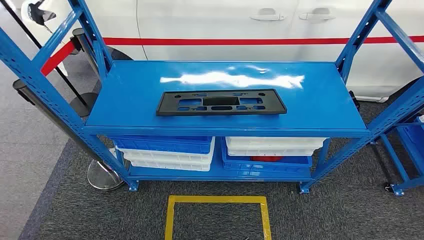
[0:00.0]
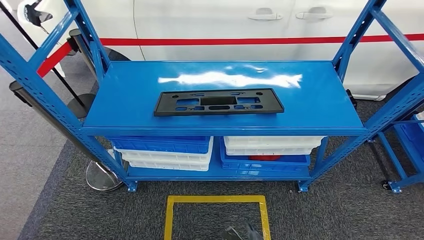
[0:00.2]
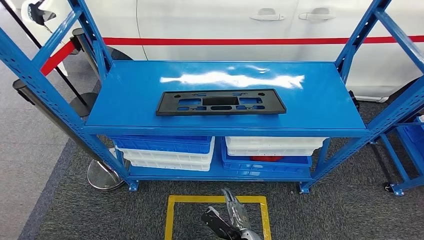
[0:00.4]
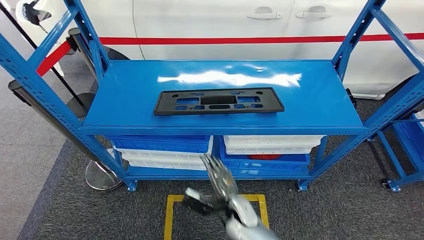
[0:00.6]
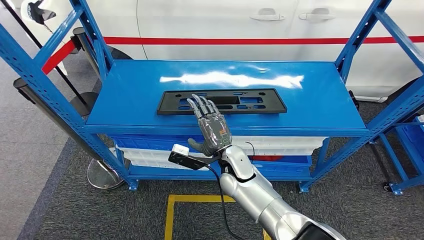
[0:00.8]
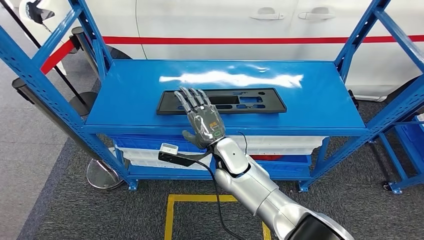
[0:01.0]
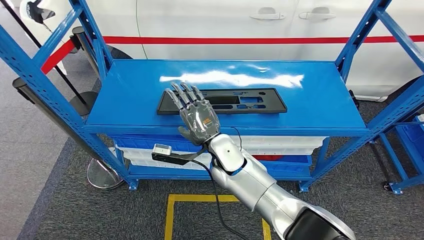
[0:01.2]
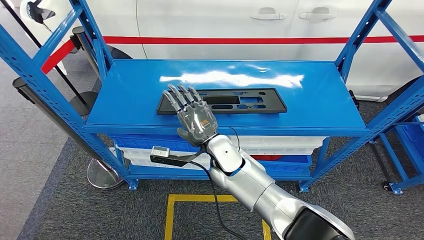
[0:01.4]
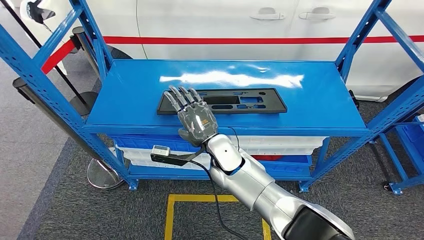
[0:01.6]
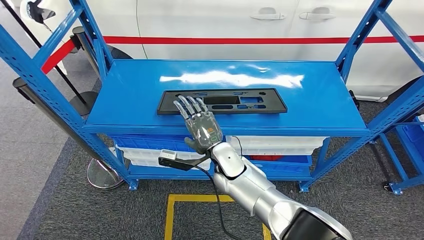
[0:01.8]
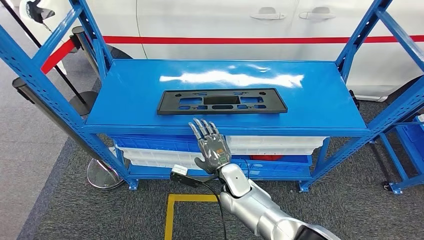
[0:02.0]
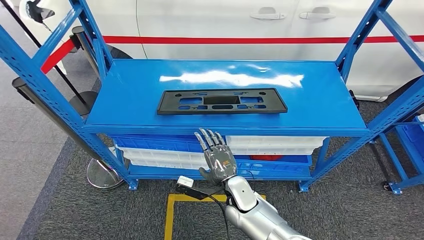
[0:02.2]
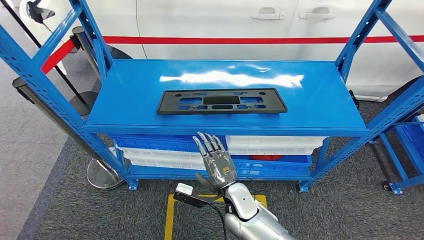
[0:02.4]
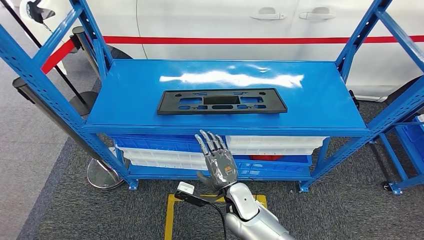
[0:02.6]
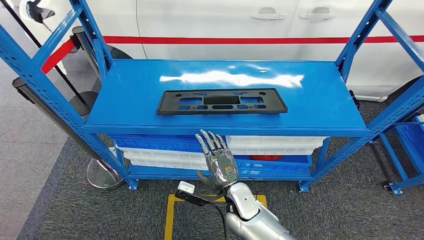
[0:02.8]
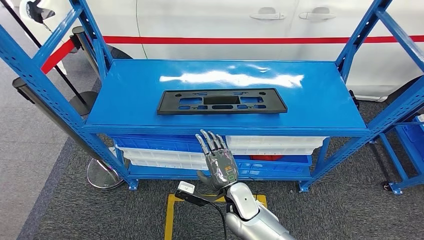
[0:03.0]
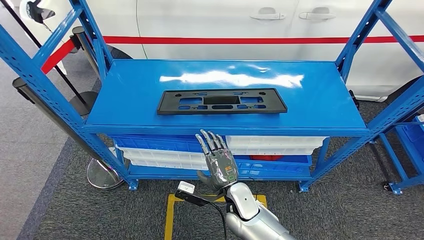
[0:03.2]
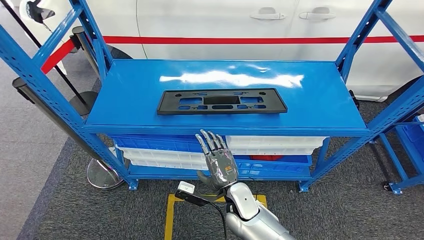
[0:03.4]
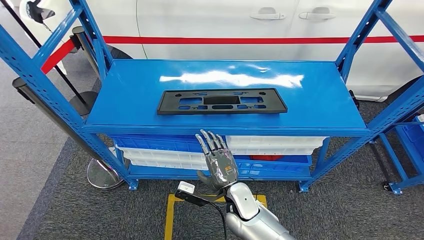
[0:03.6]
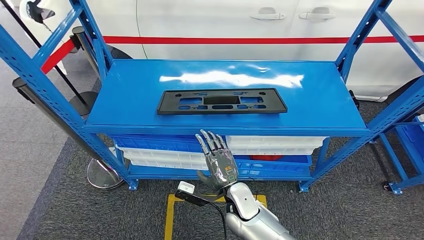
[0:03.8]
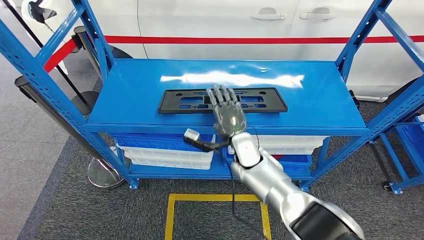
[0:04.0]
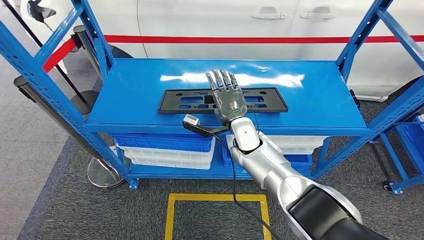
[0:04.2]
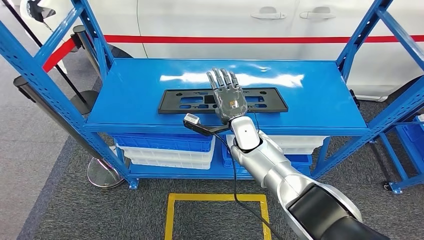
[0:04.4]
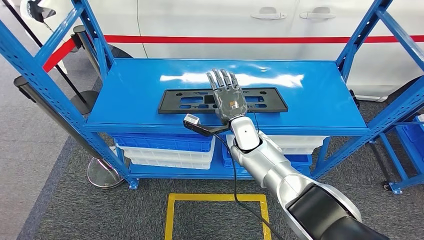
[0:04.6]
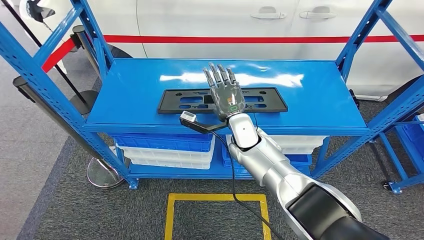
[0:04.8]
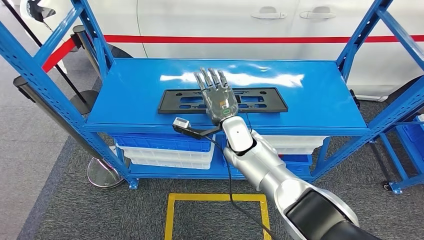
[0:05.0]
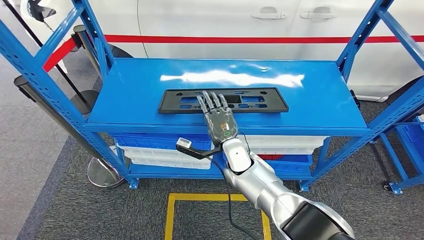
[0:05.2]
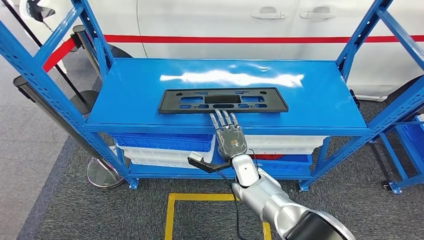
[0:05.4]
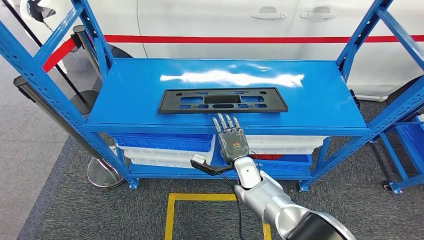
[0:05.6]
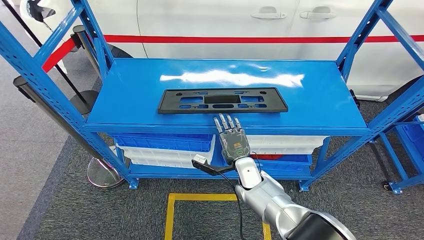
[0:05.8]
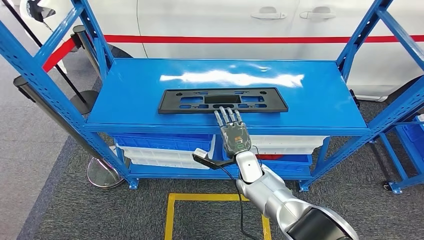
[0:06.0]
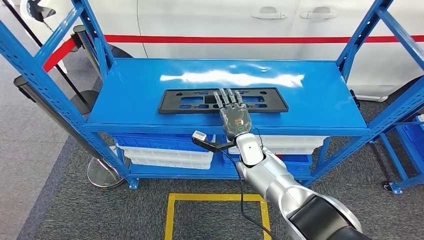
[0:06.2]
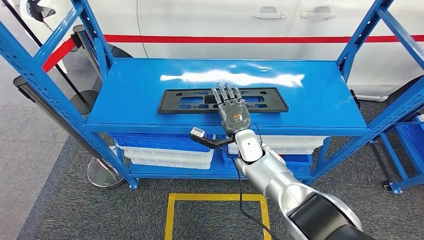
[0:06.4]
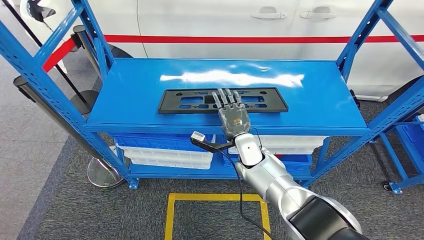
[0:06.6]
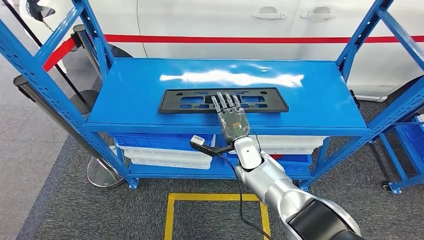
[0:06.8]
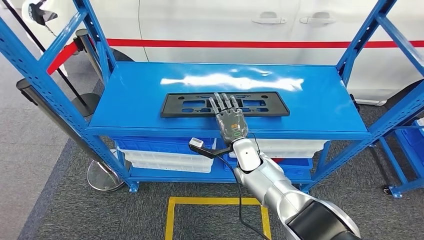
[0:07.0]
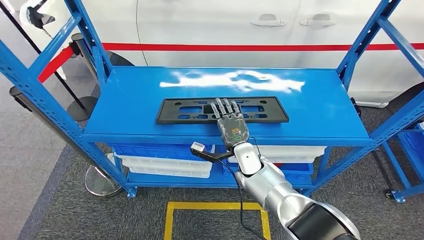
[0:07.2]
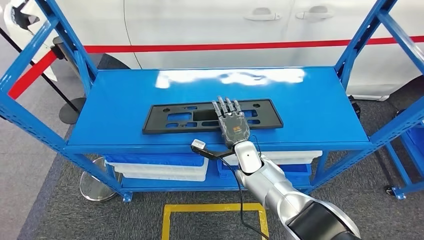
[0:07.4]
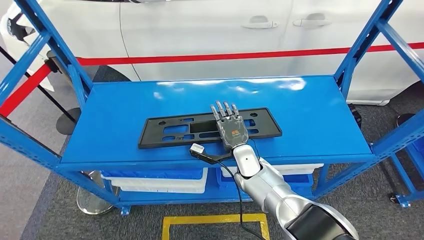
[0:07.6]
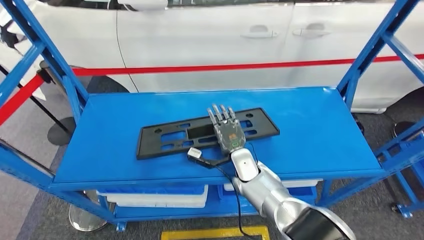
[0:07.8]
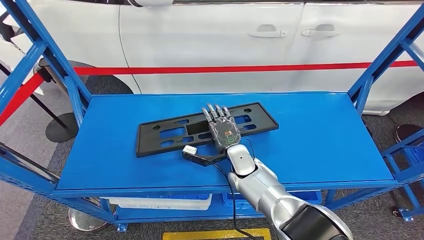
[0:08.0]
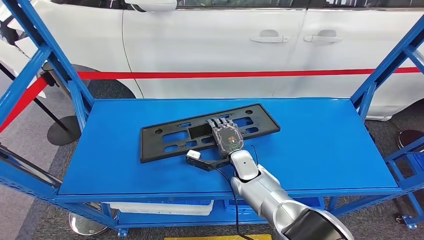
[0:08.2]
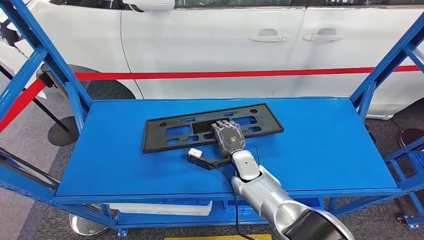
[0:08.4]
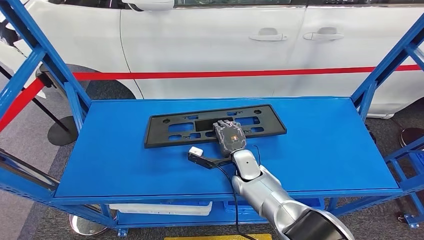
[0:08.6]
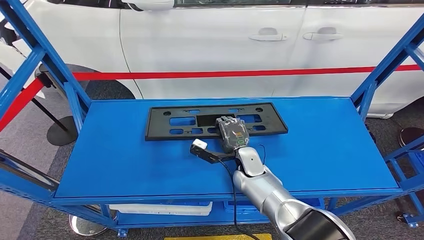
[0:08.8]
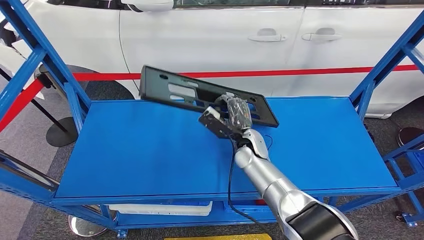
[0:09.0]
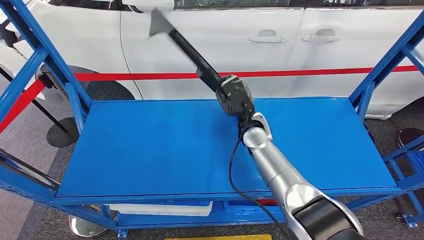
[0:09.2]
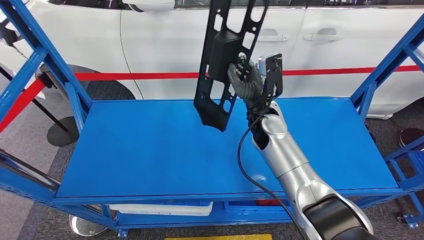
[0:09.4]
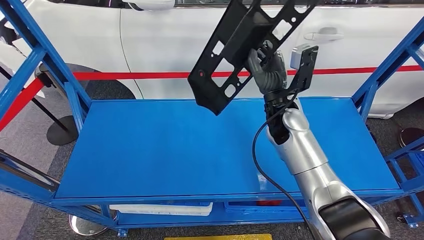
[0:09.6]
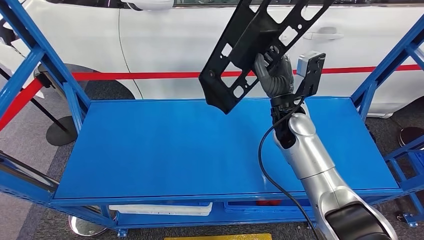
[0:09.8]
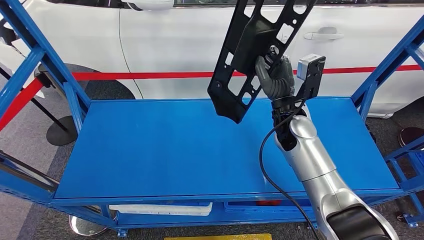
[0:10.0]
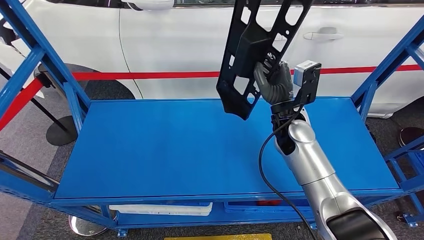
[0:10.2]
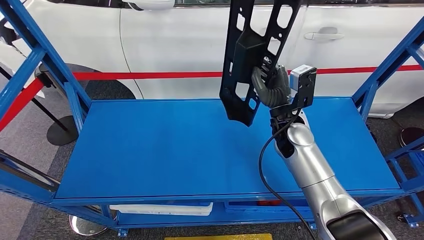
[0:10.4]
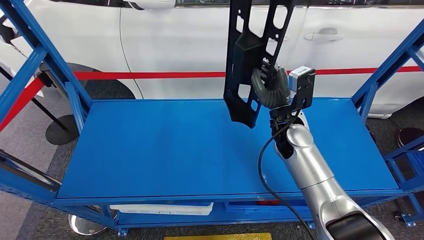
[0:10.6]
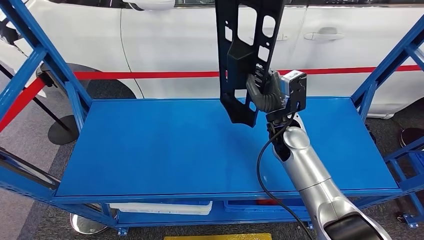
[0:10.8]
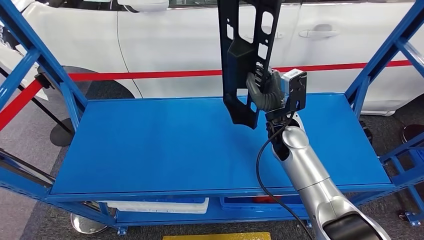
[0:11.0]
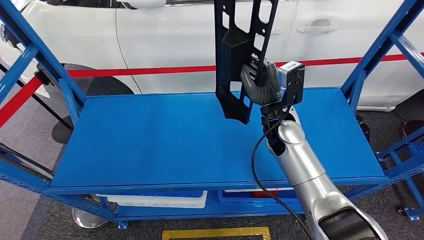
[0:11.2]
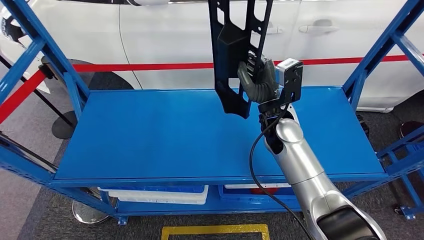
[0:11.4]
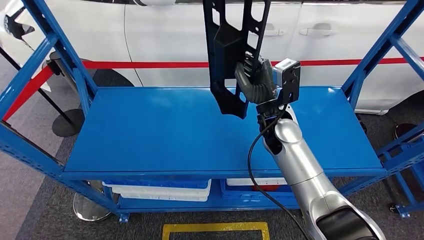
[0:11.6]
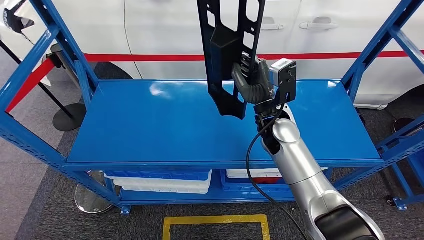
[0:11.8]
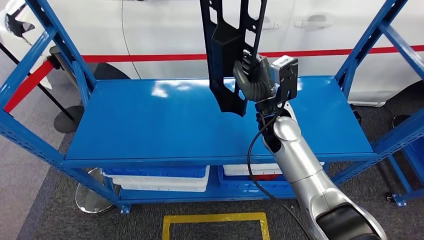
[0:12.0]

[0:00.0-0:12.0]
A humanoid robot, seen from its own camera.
Step, 0:00.0 to 0:09.8: Pick up the large material from the shelf.
0:01.6 to 0:03.0: The right hand heads downward and backward, covering roughly 15 cm.
0:03.0 to 0:04.4: The right hand goes approximately 20 cm forward and upward.
0:04.4 to 0:06.0: The right hand is displaced downward by about 10 cm.

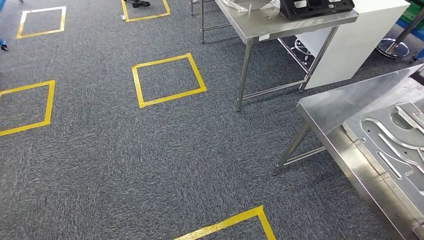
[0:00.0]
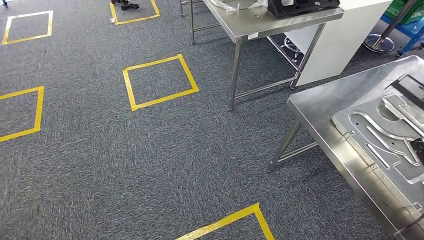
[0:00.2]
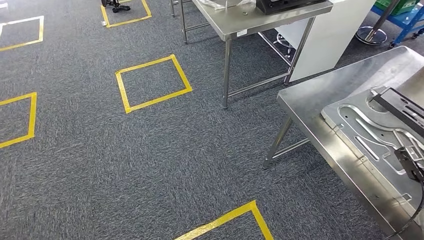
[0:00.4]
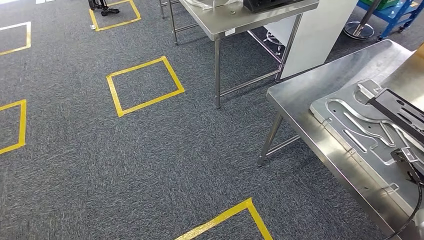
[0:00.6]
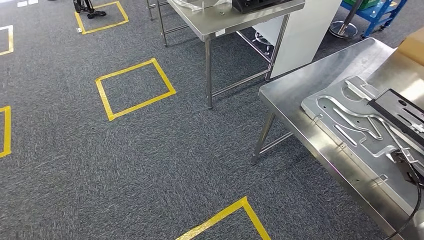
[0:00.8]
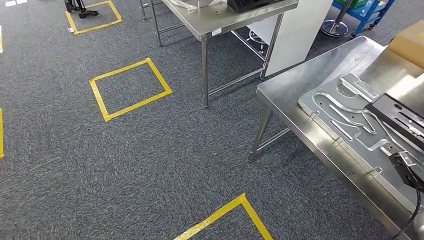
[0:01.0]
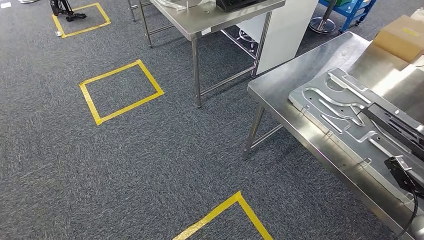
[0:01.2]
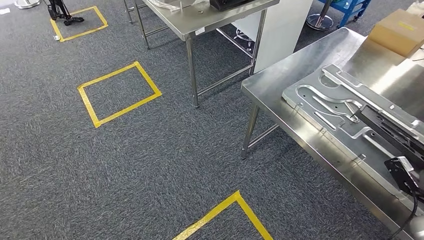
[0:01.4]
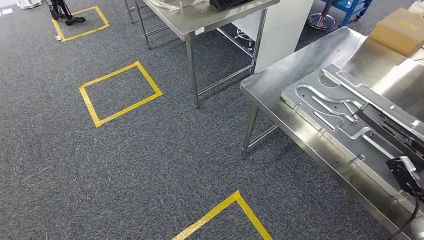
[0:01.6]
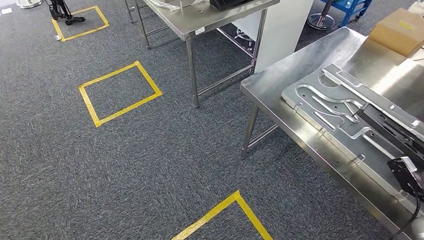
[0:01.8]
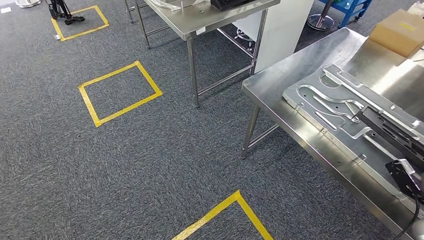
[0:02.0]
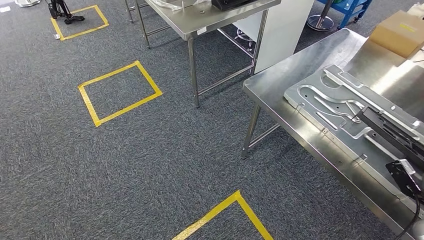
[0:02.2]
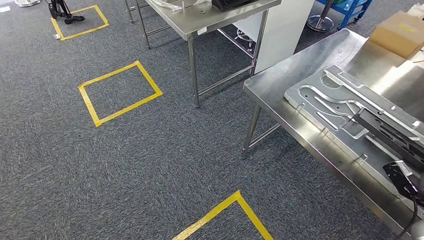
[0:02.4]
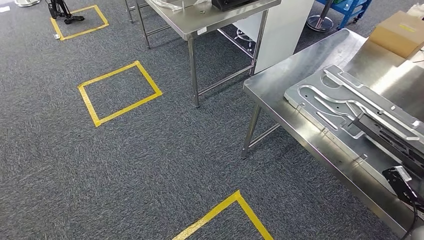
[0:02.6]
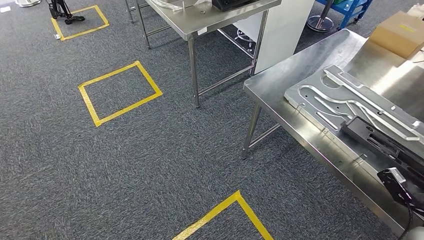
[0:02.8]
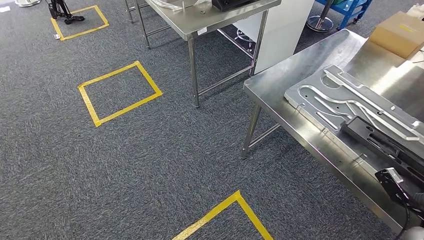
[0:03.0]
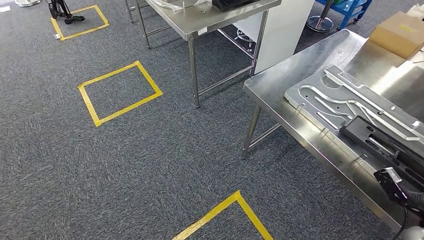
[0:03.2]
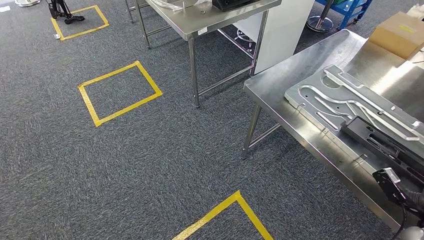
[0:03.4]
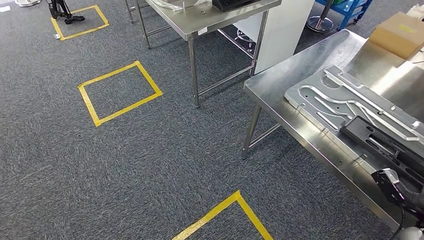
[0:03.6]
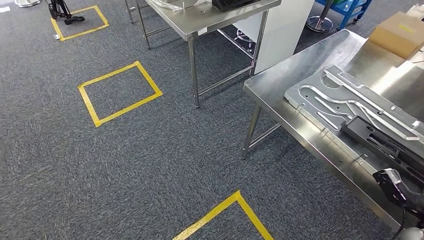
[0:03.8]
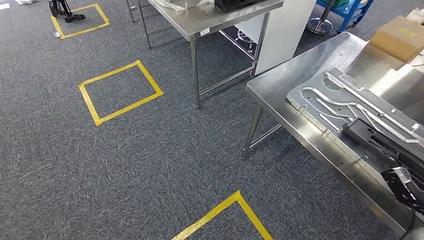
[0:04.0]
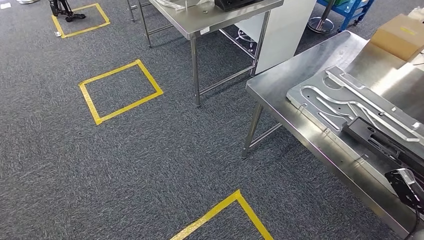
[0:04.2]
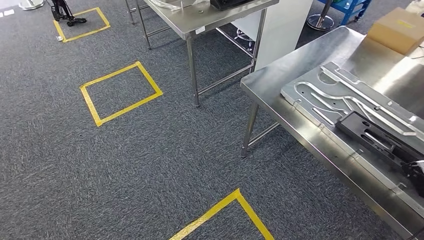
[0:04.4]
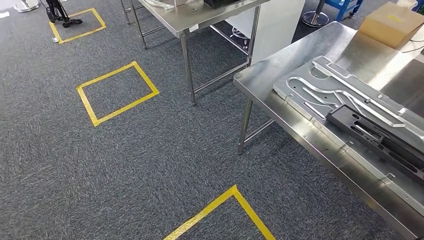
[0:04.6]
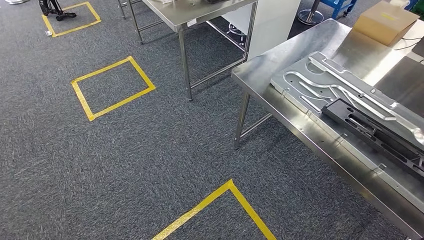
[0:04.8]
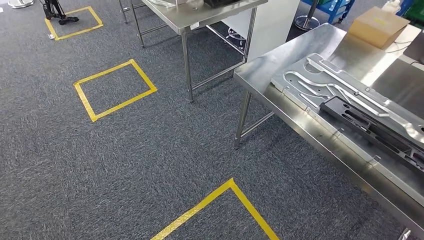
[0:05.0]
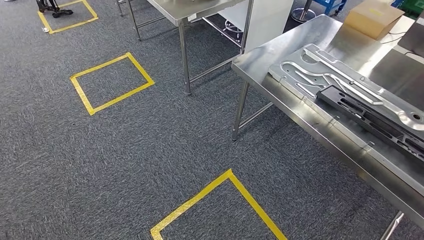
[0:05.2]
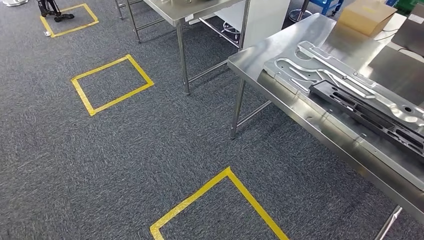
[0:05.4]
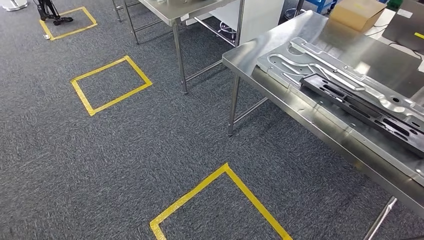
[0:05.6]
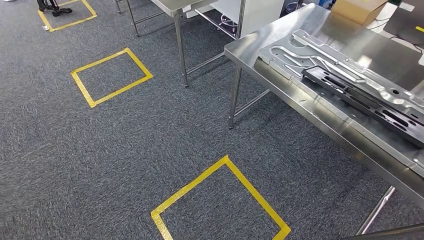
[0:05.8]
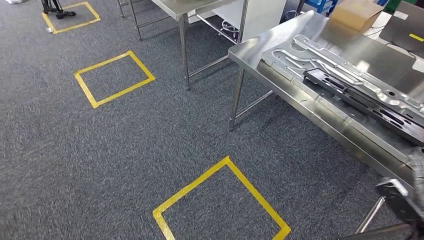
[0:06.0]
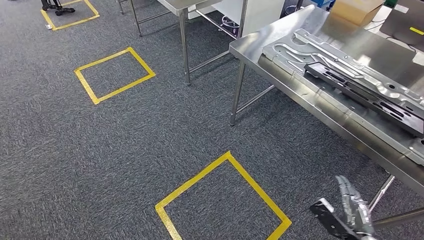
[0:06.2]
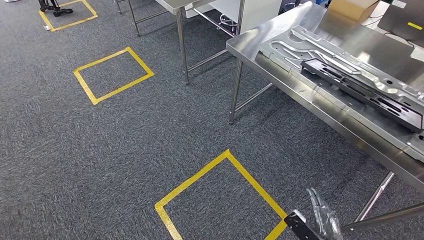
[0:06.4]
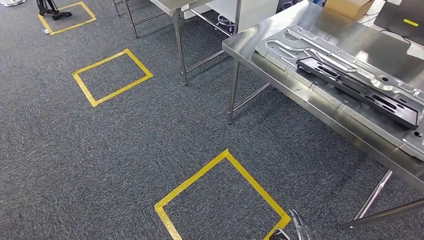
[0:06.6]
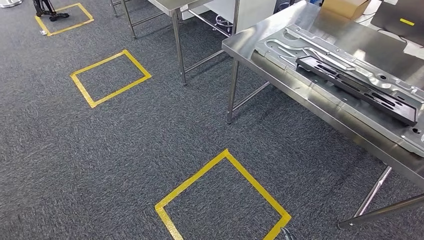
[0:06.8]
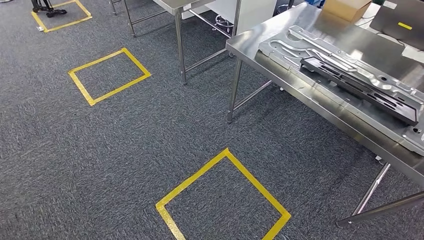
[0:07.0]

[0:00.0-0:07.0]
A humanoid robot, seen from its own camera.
Step, 0:00.0 to 0:03.2: Move the large material to the workbench.
0:01.4 to 0:04.2: There are only small adjustments of the hands.
